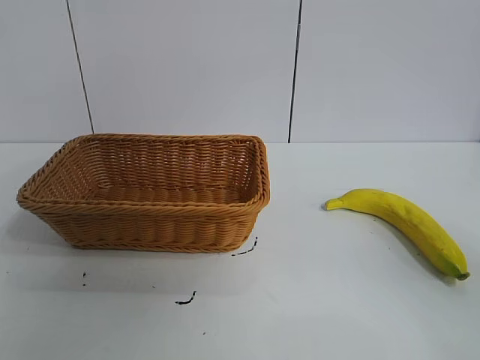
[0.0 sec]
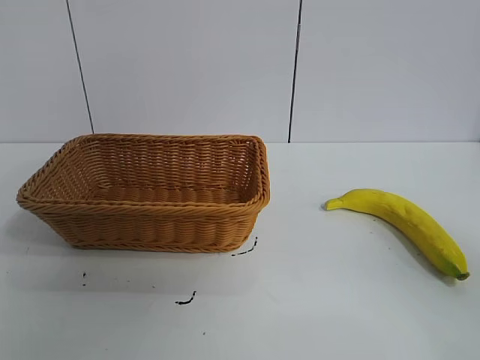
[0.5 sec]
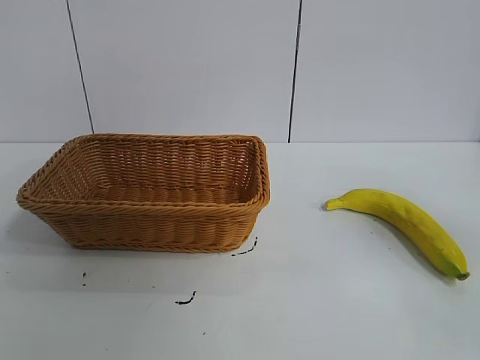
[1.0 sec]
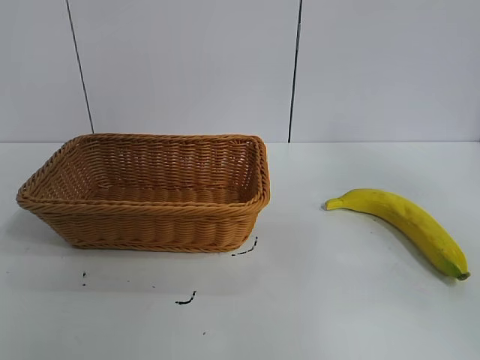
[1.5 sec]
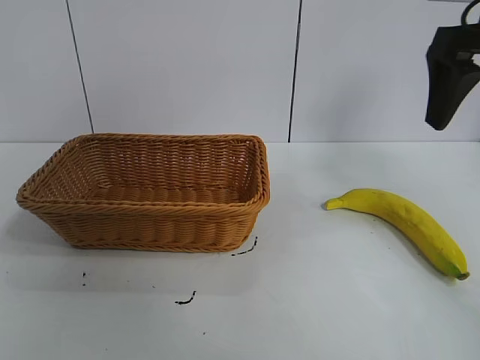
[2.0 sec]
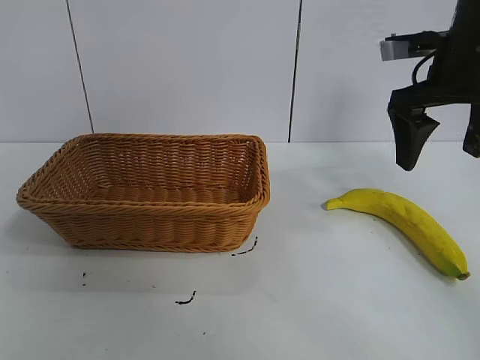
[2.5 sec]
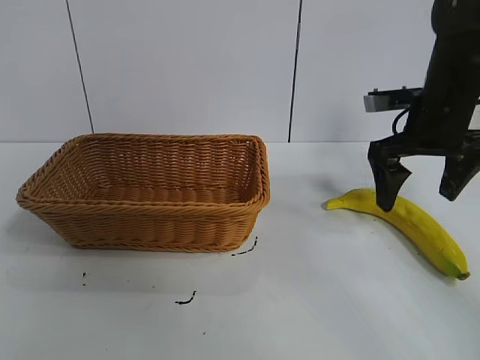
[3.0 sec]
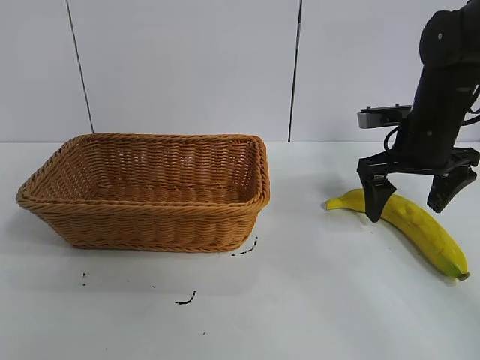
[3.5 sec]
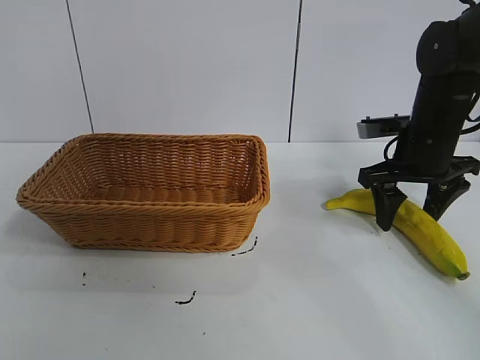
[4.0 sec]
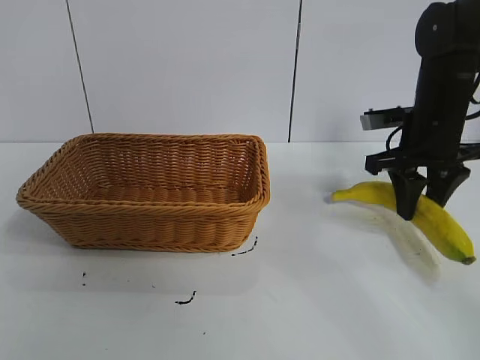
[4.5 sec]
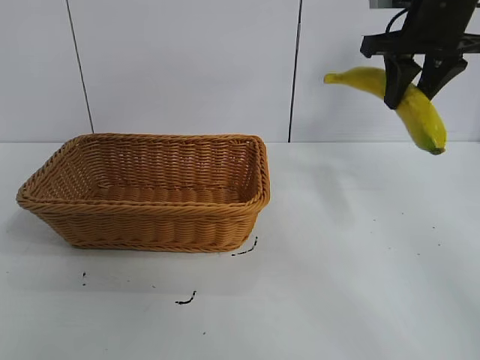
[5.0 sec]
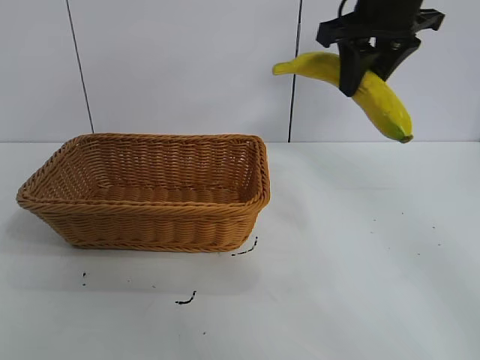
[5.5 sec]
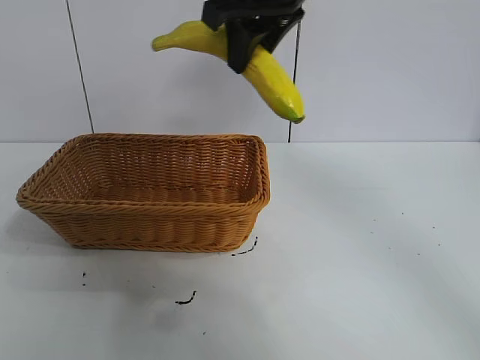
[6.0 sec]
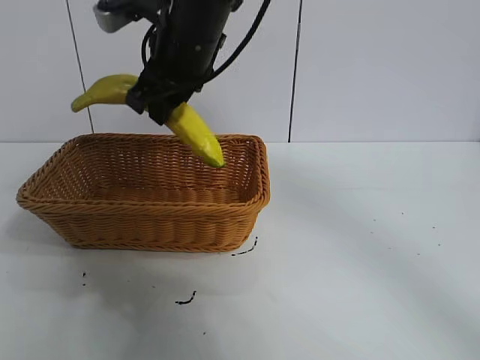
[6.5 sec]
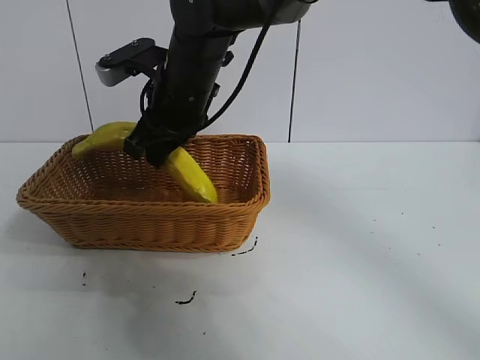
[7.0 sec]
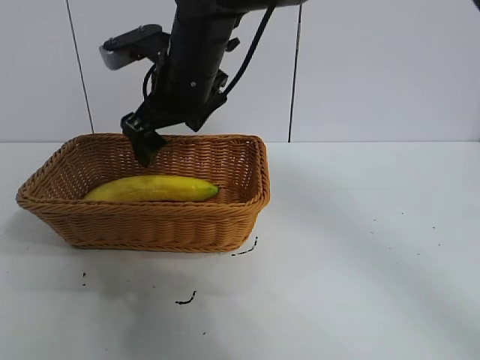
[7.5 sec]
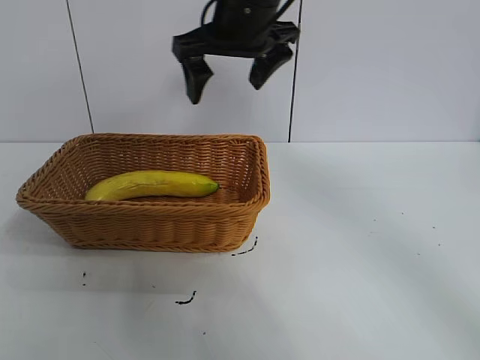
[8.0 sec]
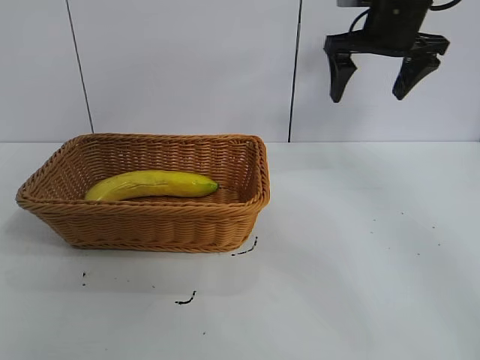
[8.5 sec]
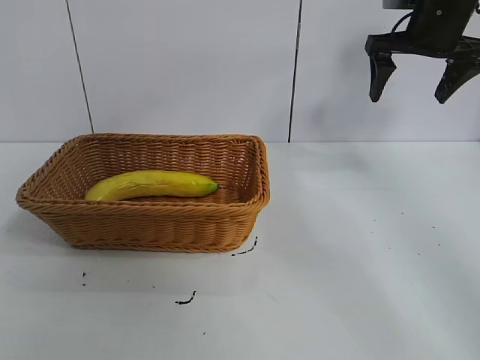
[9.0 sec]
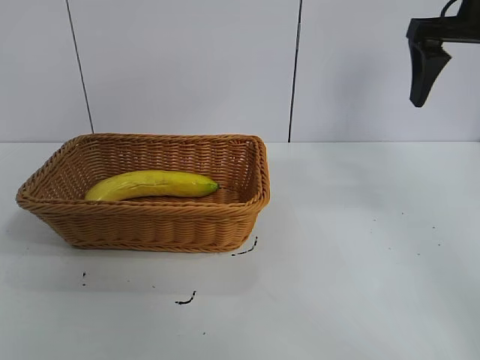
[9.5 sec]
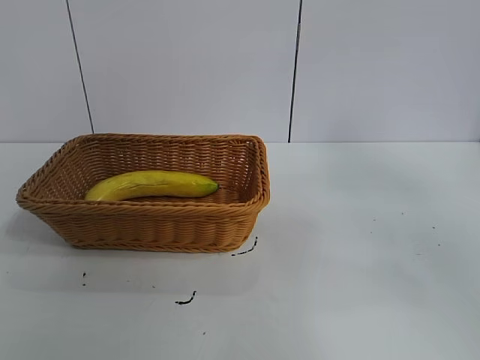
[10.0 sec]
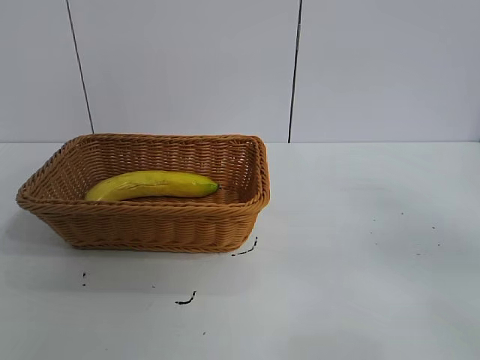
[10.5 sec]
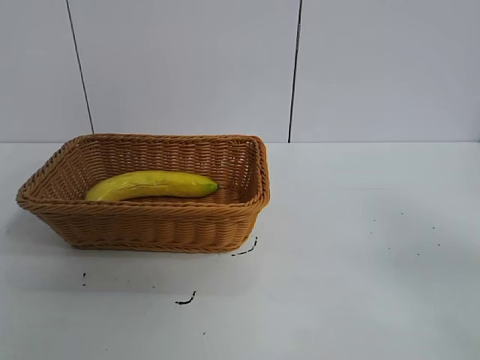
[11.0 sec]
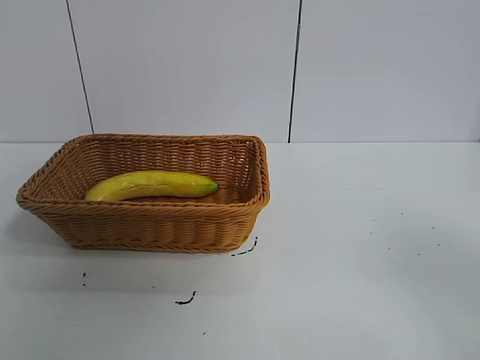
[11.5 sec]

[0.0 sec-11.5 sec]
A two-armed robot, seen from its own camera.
Task of the whole recording: pick up the banana and put it into the basket.
Step, 1.0 sec to 4.0 sec: Grasp the banana with right gripper.
Step, 4.5 sec to 7.5 sec: Place the banana in the basket with right gripper.
